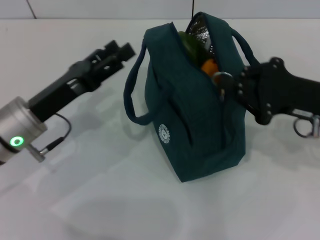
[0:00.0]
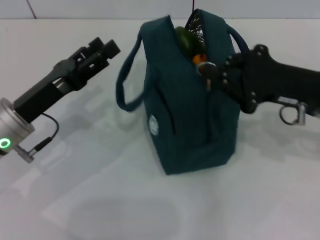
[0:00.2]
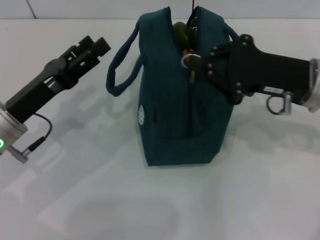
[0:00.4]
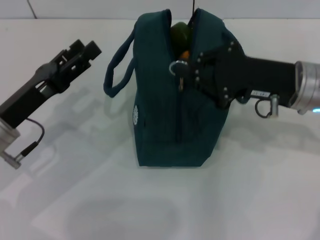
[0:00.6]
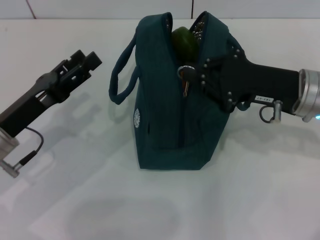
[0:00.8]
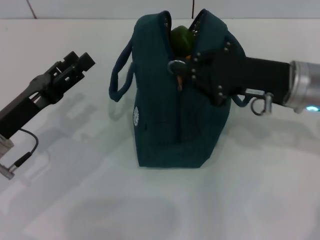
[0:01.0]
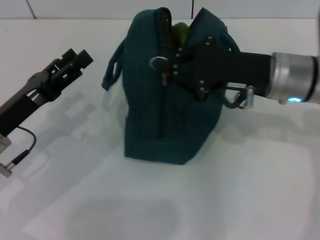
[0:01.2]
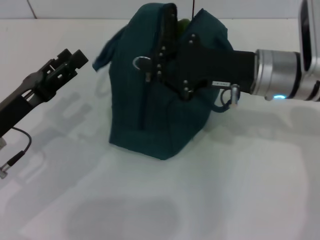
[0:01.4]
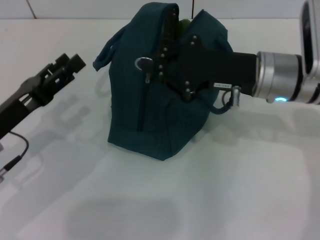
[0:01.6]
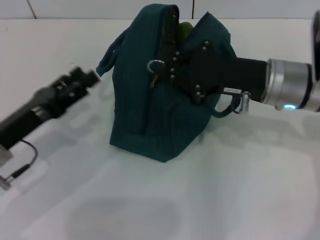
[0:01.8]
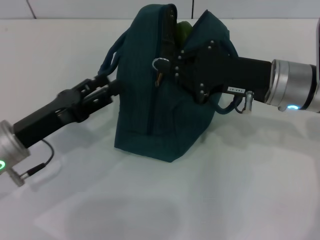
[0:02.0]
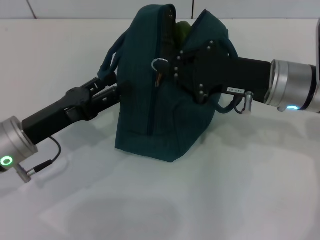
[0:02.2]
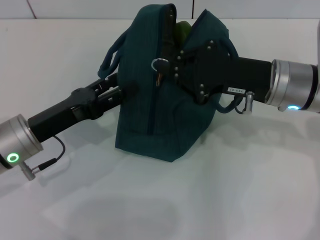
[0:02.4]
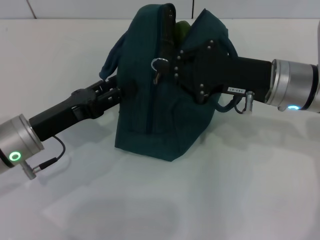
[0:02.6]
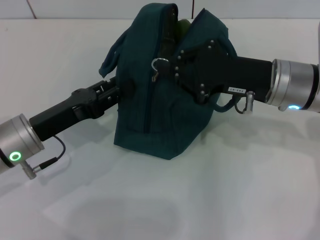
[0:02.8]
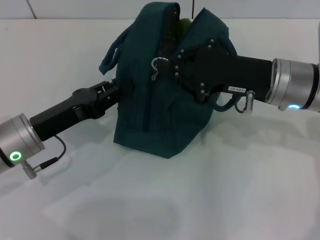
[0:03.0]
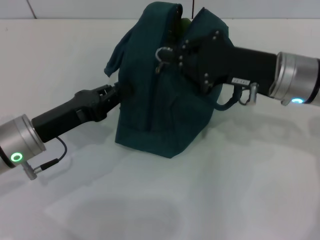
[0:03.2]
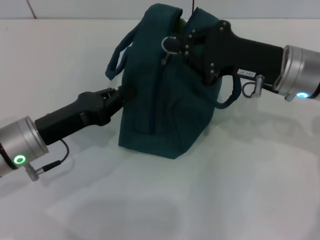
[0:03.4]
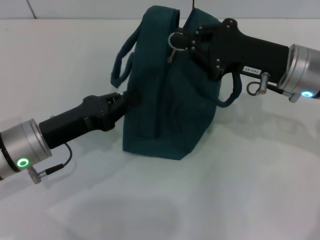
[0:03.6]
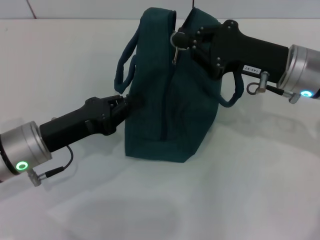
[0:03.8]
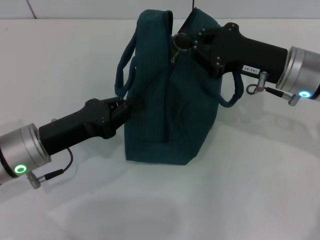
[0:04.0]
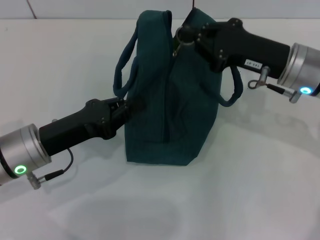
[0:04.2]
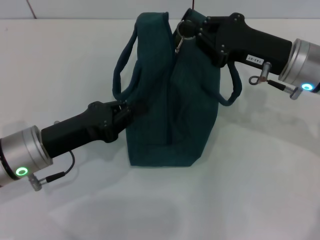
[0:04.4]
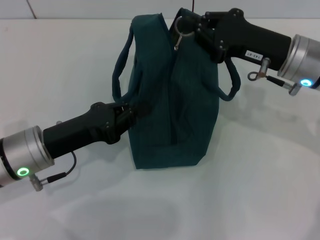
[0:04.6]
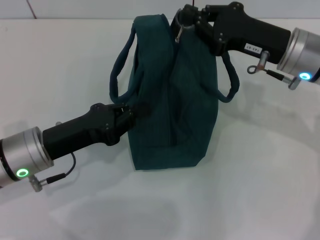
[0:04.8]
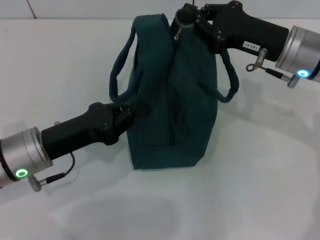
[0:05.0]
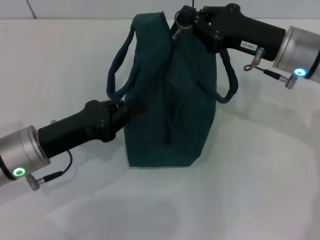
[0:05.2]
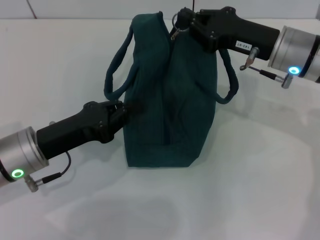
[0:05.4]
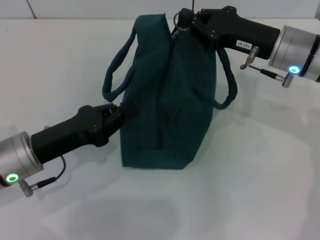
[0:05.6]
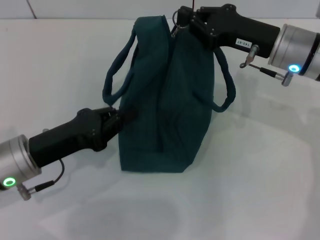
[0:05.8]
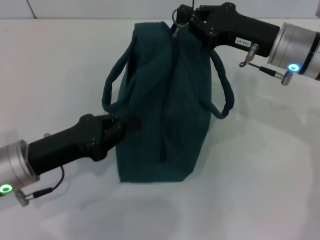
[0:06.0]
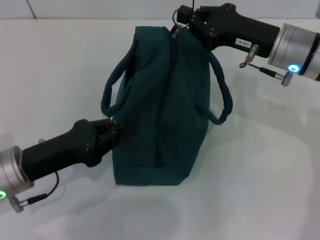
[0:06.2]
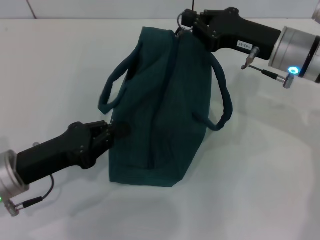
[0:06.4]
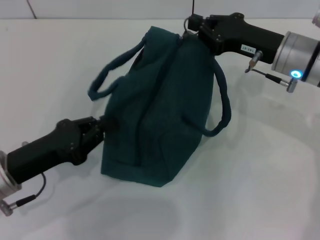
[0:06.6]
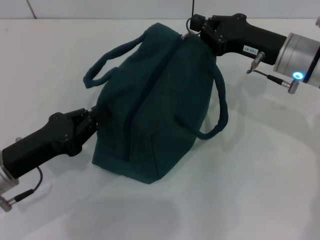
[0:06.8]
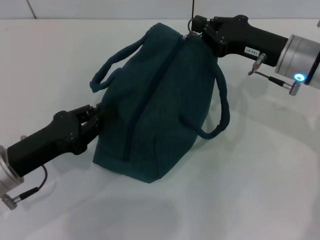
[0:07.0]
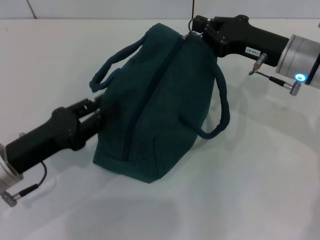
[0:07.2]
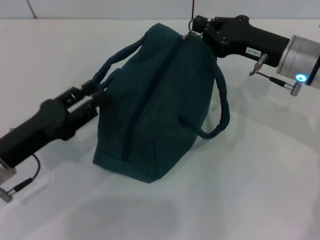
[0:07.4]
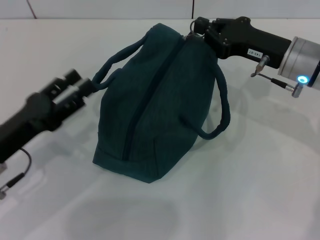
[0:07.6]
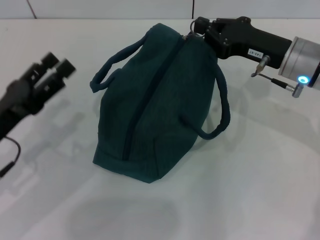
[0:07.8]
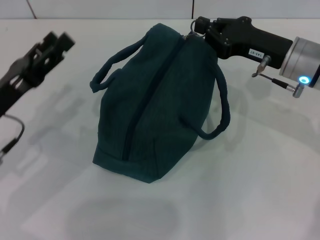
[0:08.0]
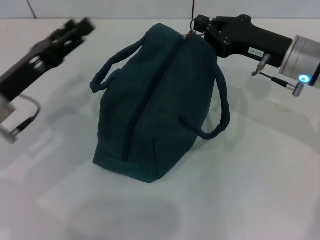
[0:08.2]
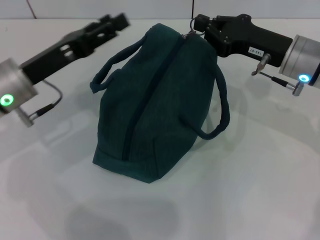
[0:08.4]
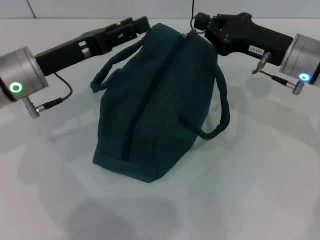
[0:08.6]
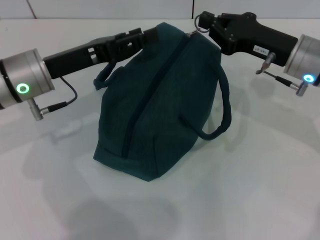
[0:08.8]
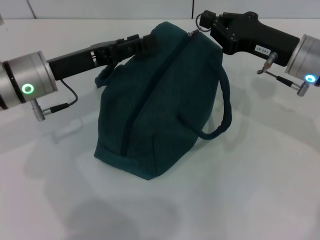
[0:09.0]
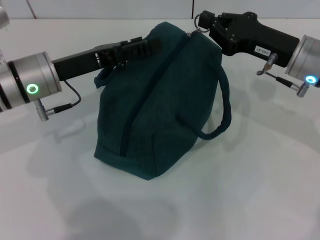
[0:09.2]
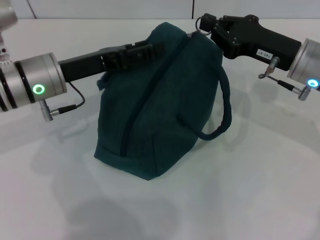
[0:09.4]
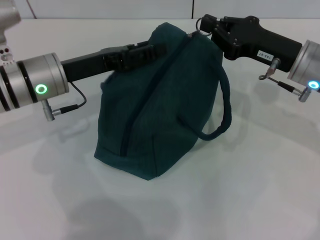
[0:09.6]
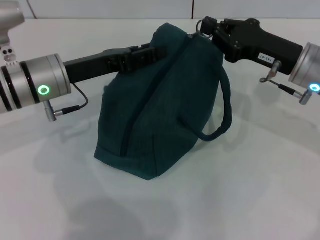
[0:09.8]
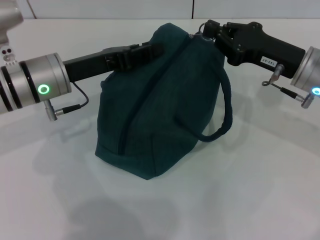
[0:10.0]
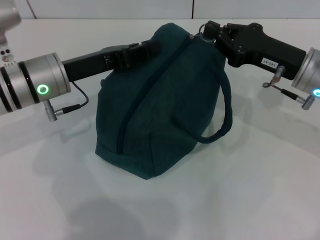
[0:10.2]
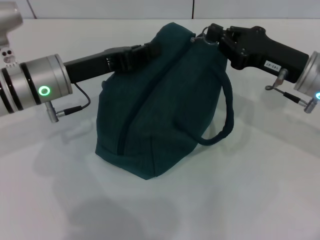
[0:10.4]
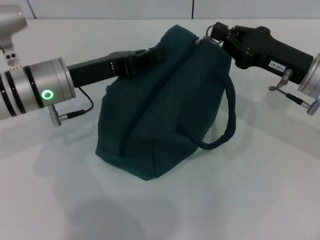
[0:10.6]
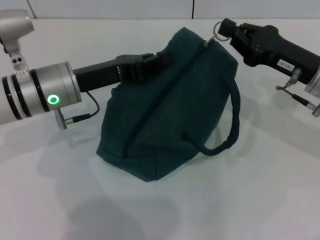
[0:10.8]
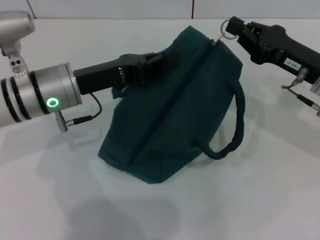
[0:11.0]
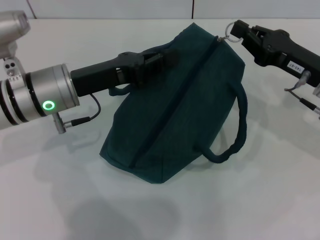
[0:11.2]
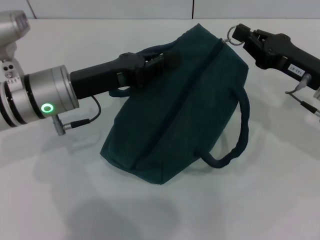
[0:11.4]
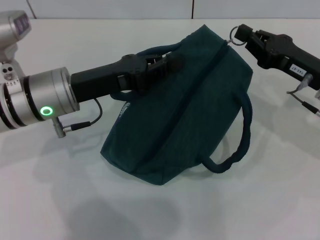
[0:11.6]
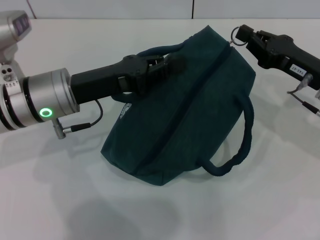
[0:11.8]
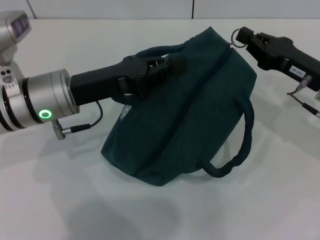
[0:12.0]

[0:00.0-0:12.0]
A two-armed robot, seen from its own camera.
0:00.0 to 0:01.6: The right gripper travels to the left by about 10 cm, while the left gripper travels to the left by approximately 5 cm.
0:01.6 to 0:03.0: The left gripper closes its fingers.
0:03.0 to 0:04.4: The left gripper closes.
0:04.4 to 0:06.0: The grippers make only small movements.
0:06.0 to 0:07.6: The left gripper opens.
0:07.6 to 0:09.0: The left gripper heads forward, to the right and upward, covering roughly 15 cm, and opens up.
0:09.0 to 0:10.4: The left gripper closes its fingers.

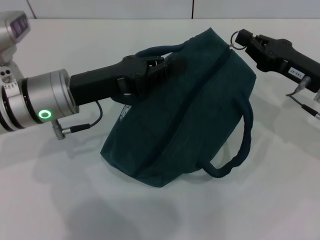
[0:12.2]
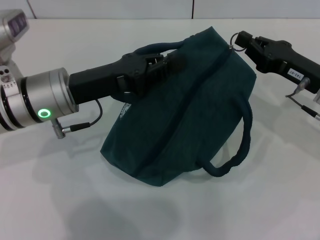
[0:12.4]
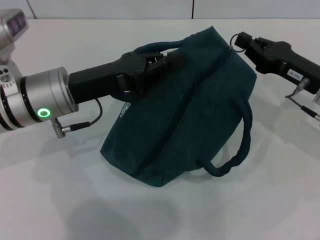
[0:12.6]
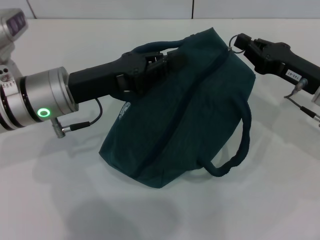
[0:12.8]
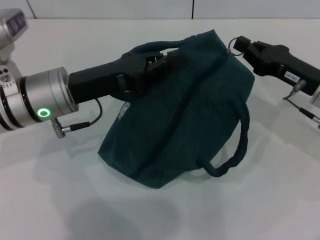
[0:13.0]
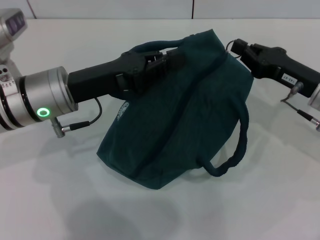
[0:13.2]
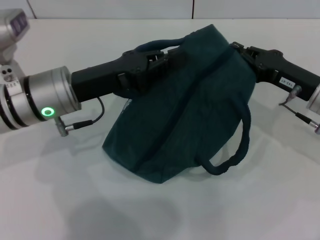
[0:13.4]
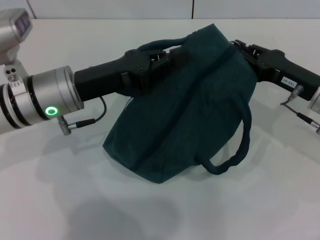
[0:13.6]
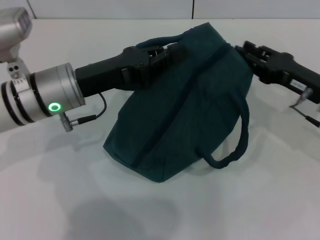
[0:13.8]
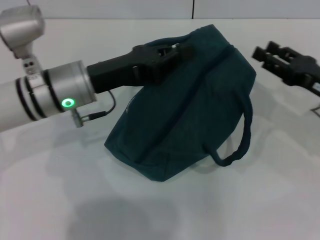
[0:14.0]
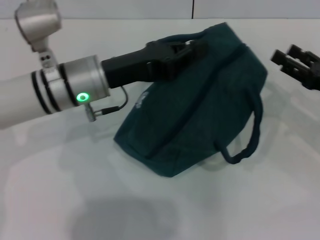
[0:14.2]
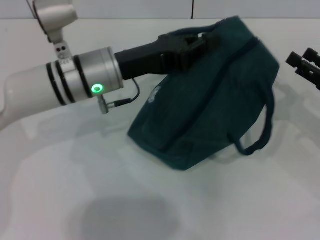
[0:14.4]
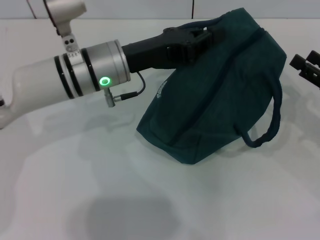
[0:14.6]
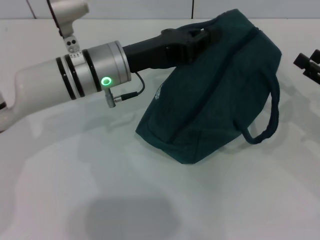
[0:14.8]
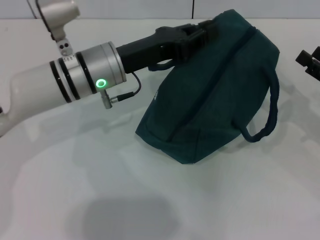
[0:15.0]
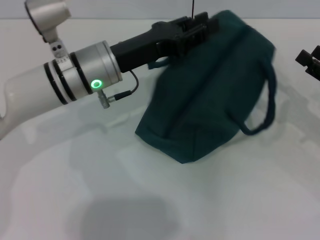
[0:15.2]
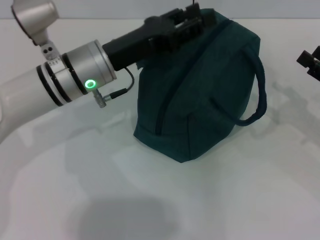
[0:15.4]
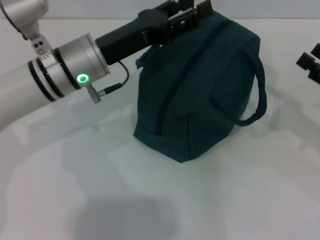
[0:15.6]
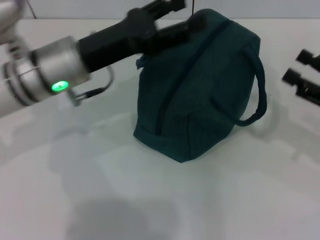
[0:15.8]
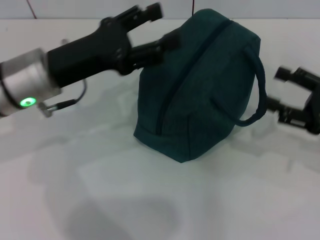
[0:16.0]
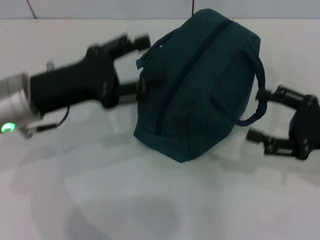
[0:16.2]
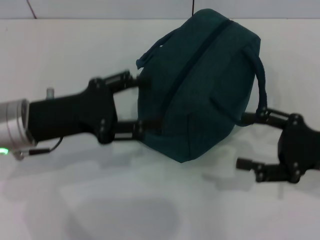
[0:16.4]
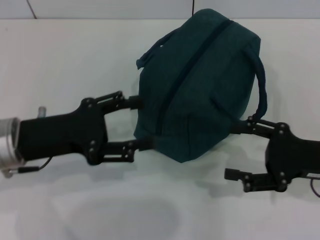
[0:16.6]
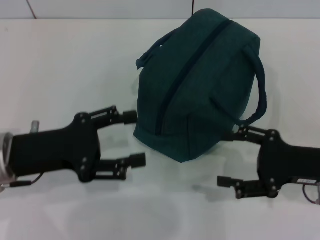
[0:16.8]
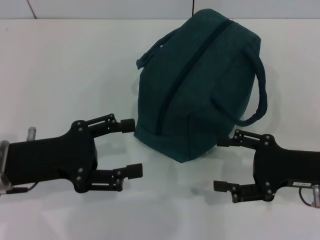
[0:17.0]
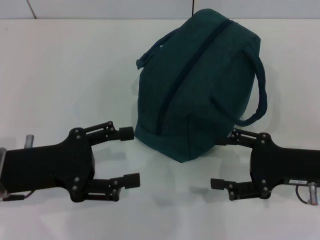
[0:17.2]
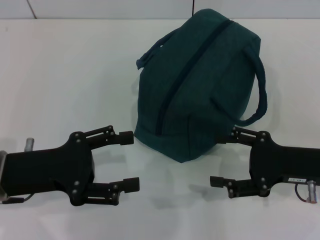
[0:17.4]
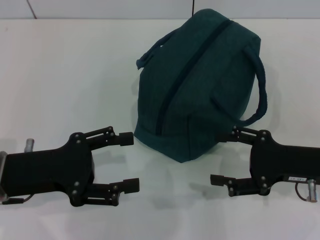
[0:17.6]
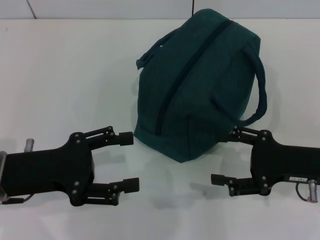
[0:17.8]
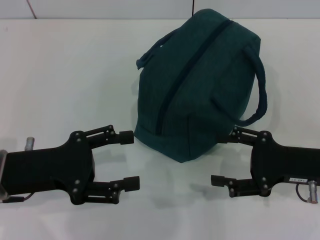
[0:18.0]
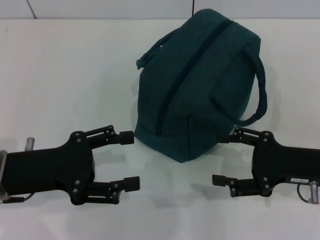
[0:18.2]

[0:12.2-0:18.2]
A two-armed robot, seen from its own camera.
Step, 0:14.2 to 0:15.8: Hold the lunch bag with your left hand.
0:12.2 to 0:13.8: The grippers stay close to where they were, moving slightly.
0:13.8 to 0:15.2: The left gripper ends up roughly 5 cm from where it was. The right gripper travels to the right by some 10 cm, and opens up.
0:15.2 to 0:16.6: The left gripper moves to the left and backward, roughly 15 cm, and opens, while the right gripper moves to the left, some 5 cm.
0:16.6 to 0:18.2: The grippers stay close to where they were, moving slightly.
